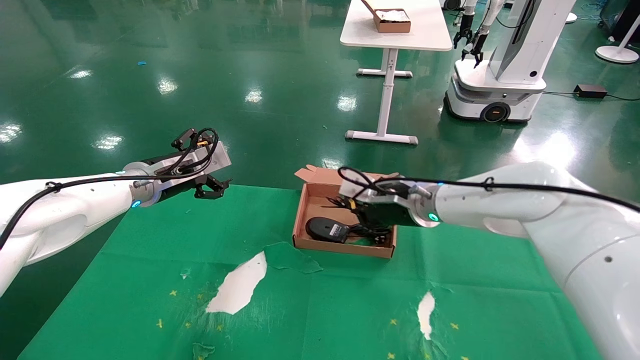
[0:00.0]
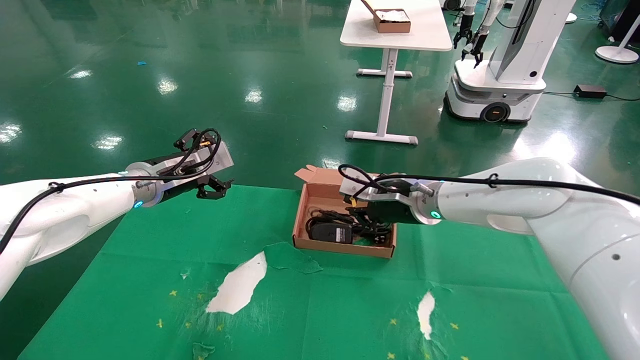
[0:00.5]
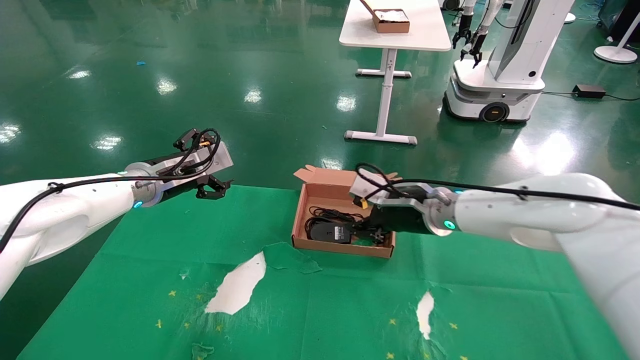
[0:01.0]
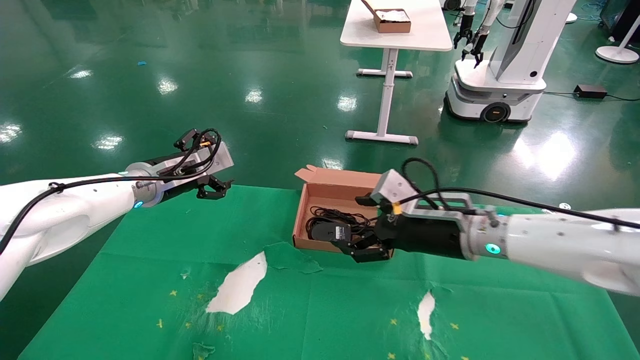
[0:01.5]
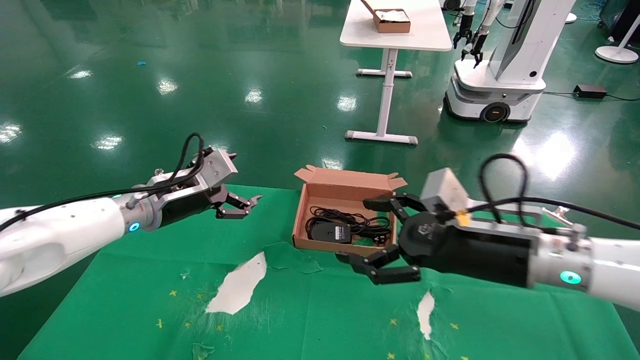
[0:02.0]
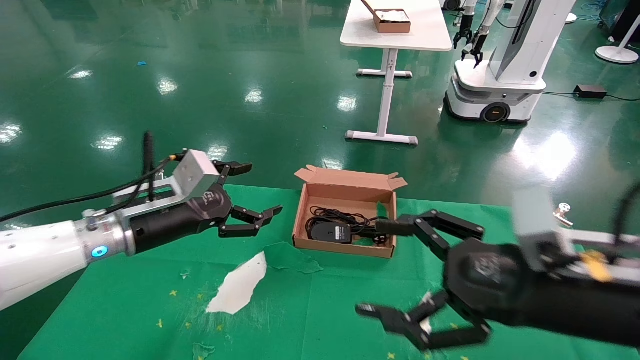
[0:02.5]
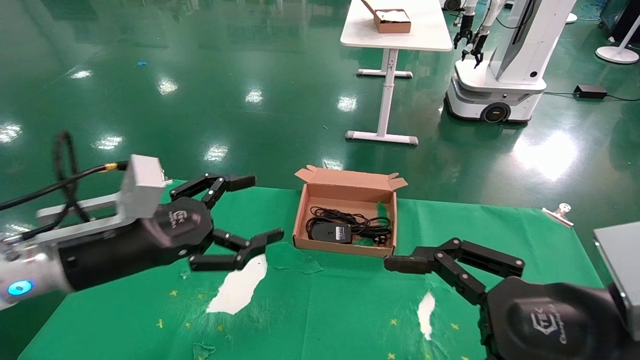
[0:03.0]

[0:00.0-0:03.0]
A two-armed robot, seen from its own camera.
0:00.0 to 0:01.5: The right gripper travels backward by about 5 cm, and opens up.
0:01.5 to 0:03.0: The two grippers go about 20 cm backward.

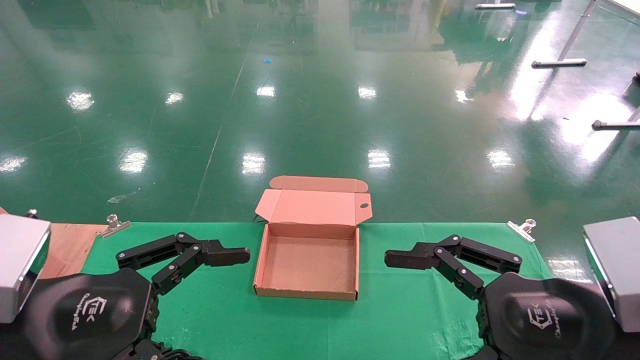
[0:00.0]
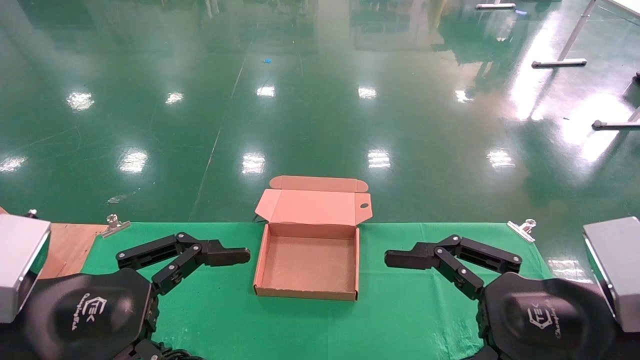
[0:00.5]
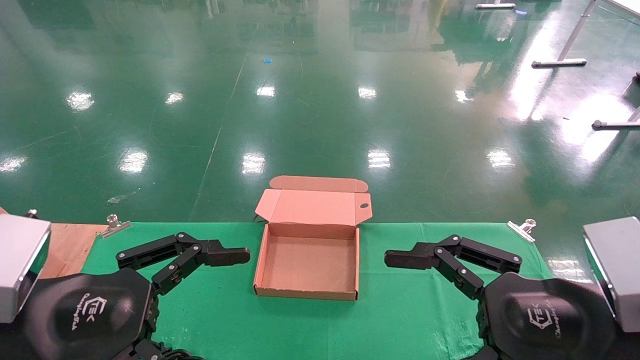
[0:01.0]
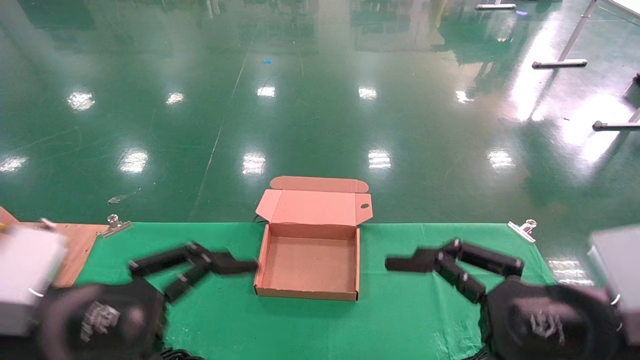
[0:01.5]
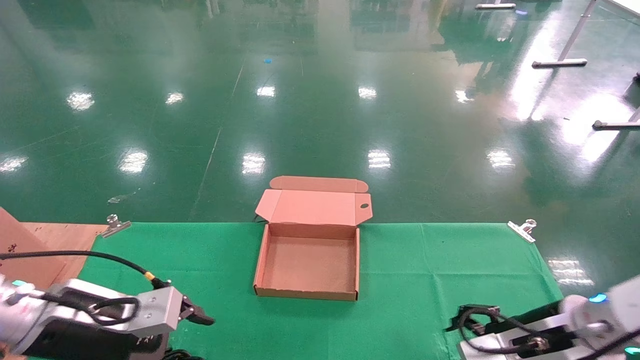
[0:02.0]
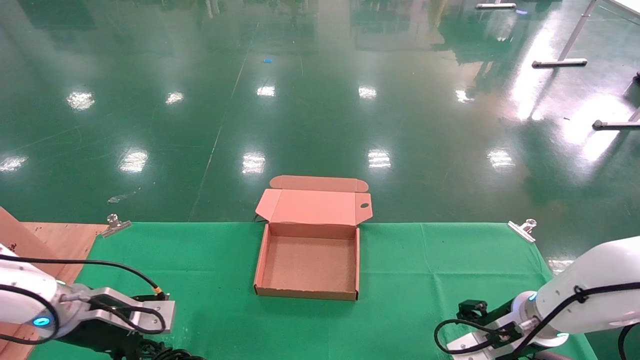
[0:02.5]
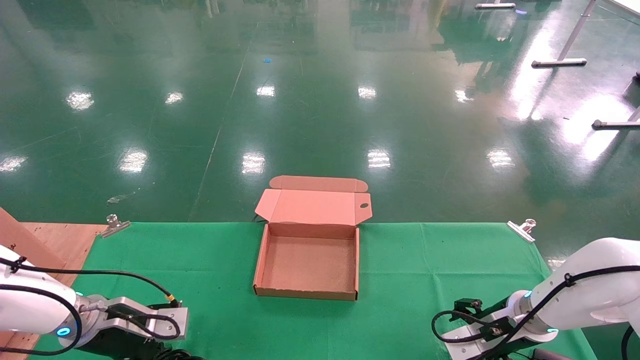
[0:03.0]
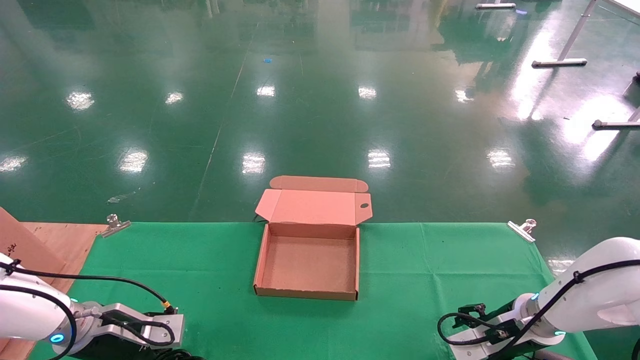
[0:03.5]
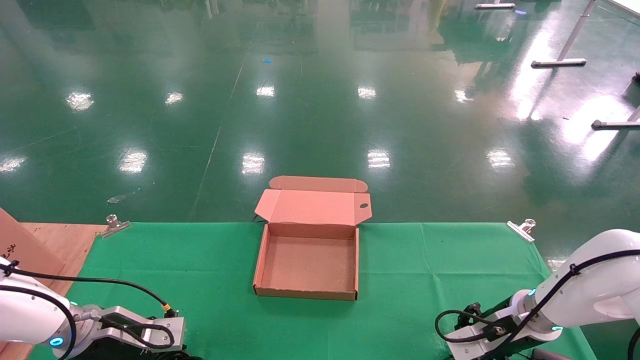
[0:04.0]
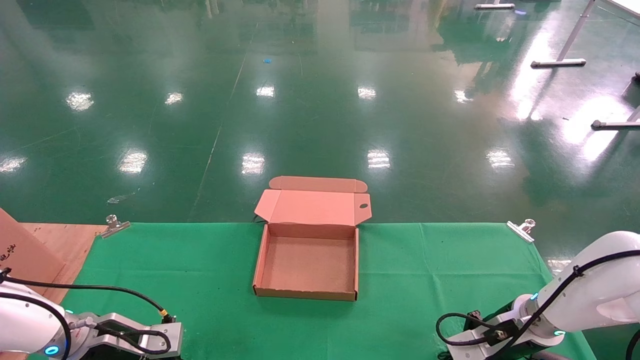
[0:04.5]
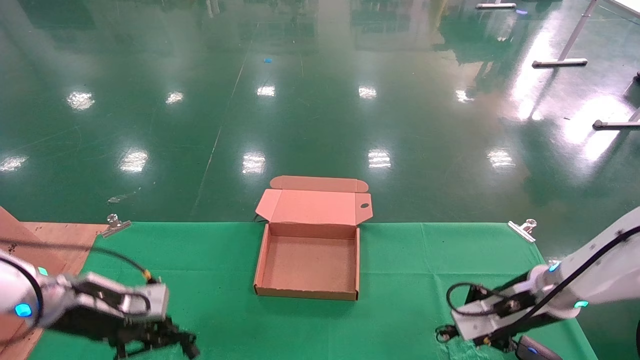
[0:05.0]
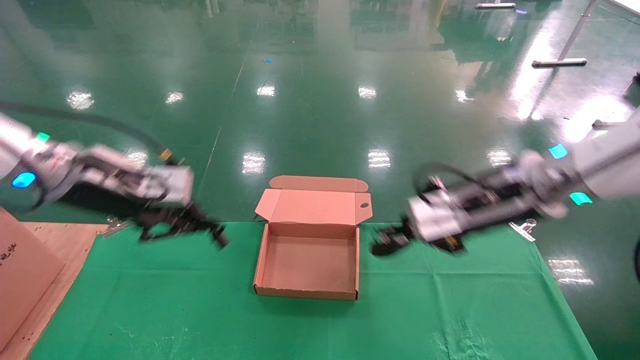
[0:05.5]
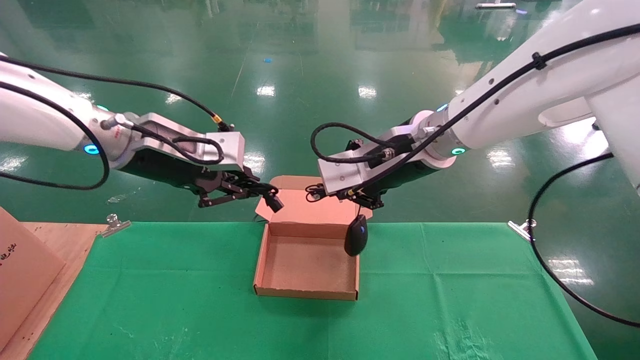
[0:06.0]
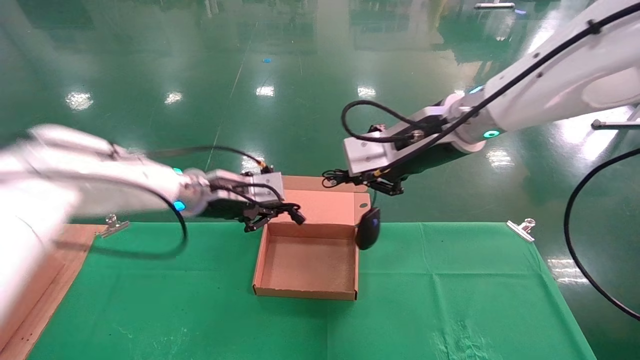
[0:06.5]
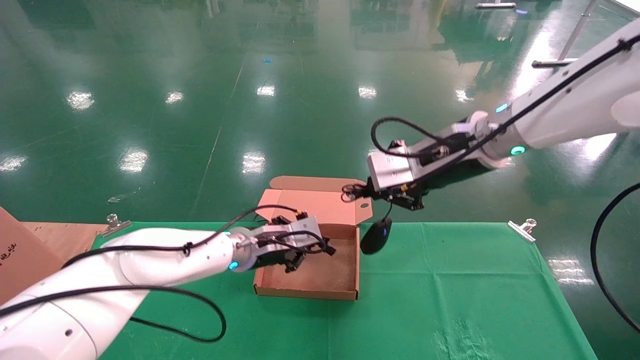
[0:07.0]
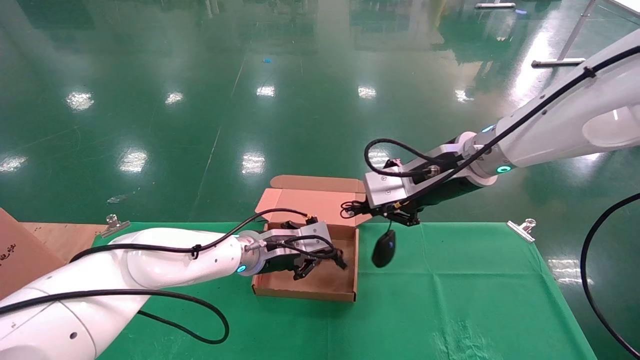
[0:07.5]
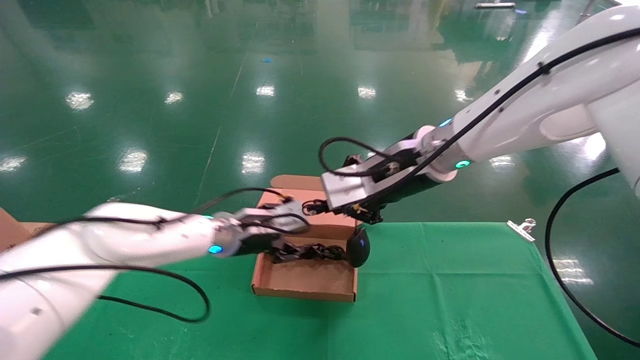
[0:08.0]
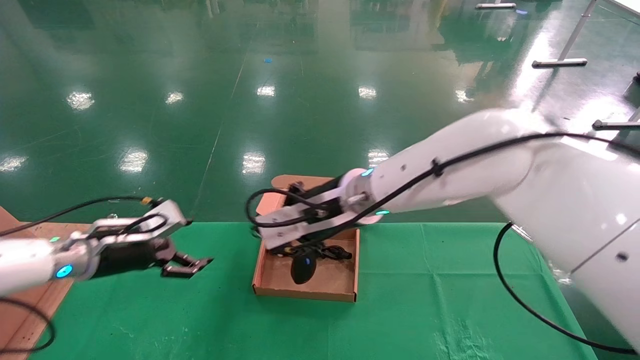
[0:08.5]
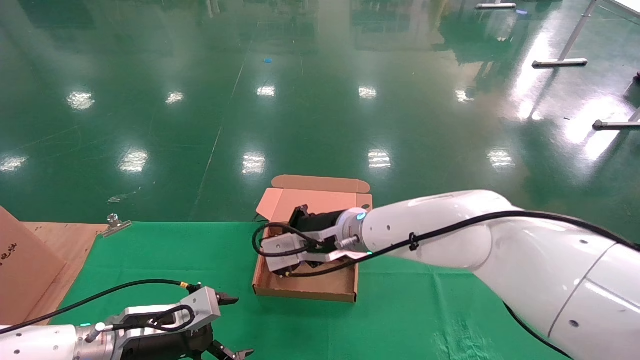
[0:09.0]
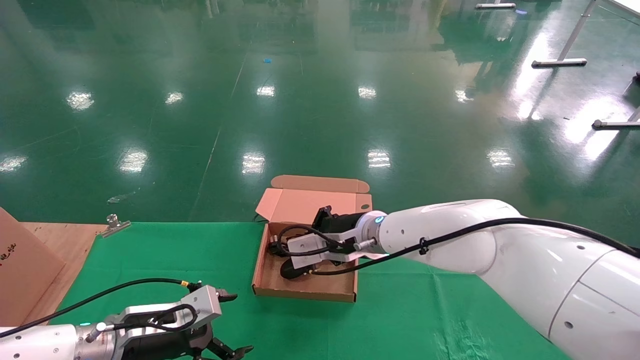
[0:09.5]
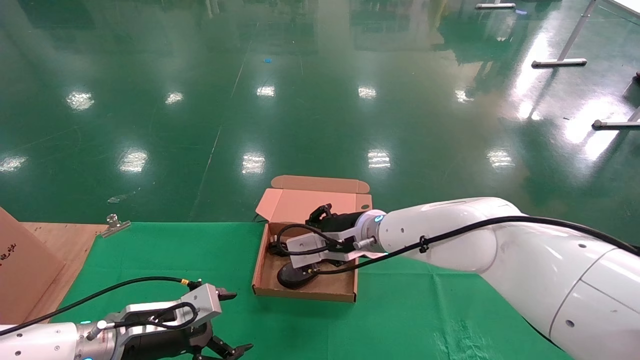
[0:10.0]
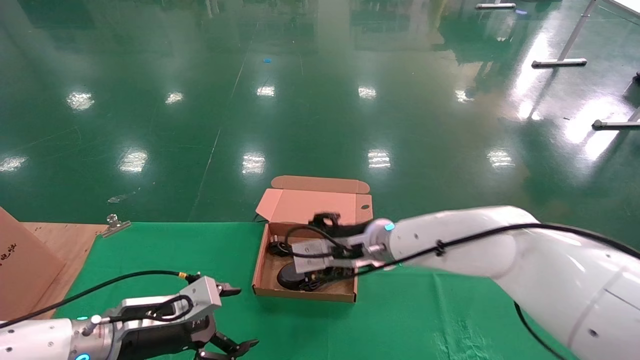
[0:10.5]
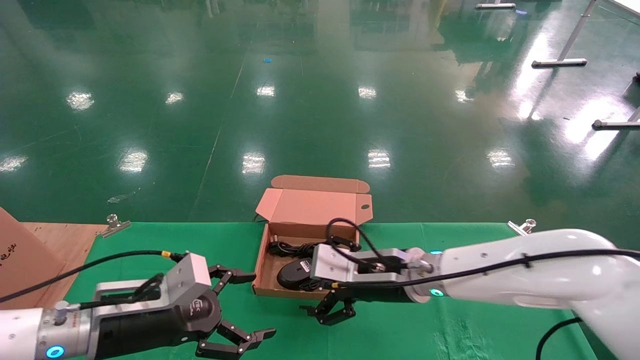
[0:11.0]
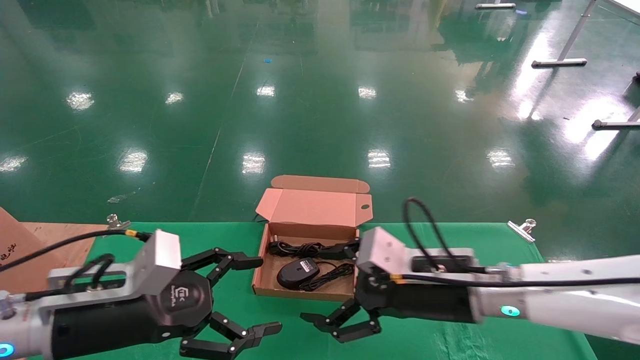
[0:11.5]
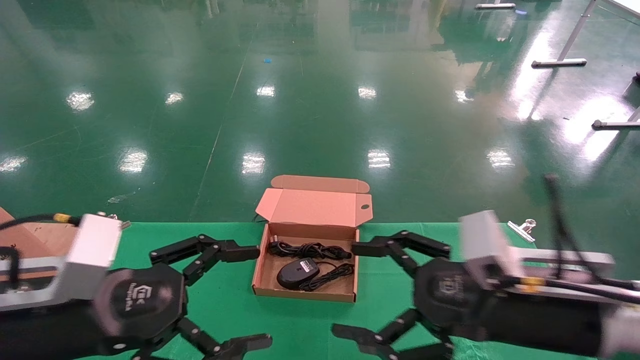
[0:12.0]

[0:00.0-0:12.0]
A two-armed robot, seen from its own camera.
Step, 0:02.0 to 0:05.5: Grab and lift both the mouse and power cord from the accessory packaging area at the same time.
Step, 0:06.0 to 0:10.5: Place the mouse and power cord into the box.
0:00.0 to 0:02.0: The grippers both shift forward and downward by roughly 15 cm.
0:02.0 to 0:04.0: The left gripper heads downward and forward, covering about 10 cm, and closes up; the right gripper travels forward and downward by roughly 10 cm, and closes.
0:04.0 to 0:06.0: The left gripper goes roughly 30 cm upward and to the right, and closes up. Meanwhile the right gripper moves upward and to the left, about 30 cm, and closes its fingers.
0:06.0 to 0:08.0: The left gripper travels downward and forward by approximately 20 cm, and opens up.
0:08.0 to 0:10.0: The left gripper goes some 20 cm backward, downward and to the left, and opens up. Meanwhile the right gripper moves downward, to the left and forward, about 15 cm.
0:10.0 to 0:12.0: The right gripper goes some 25 cm backward and to the right, and opens up; the left gripper moves upward and backward, roughly 20 cm.

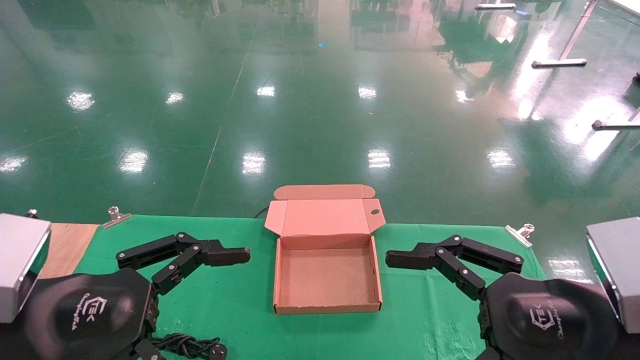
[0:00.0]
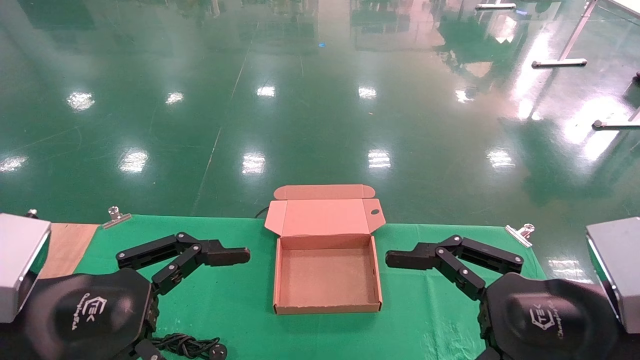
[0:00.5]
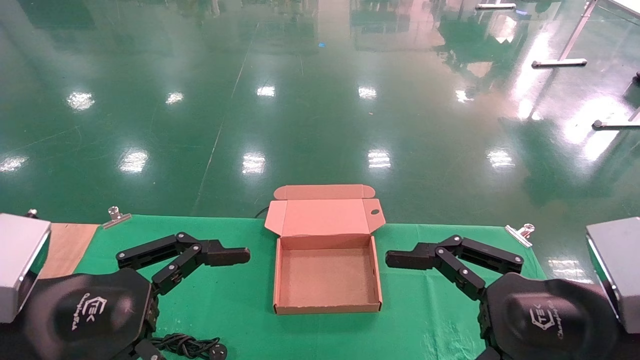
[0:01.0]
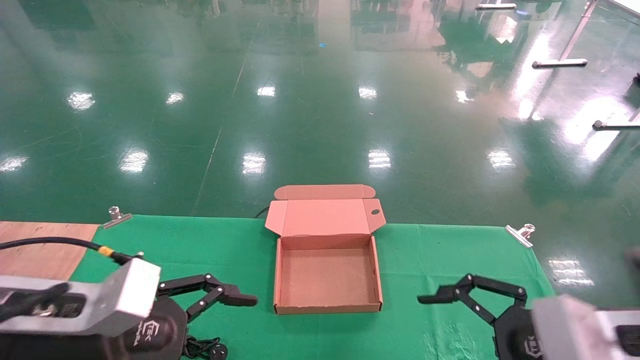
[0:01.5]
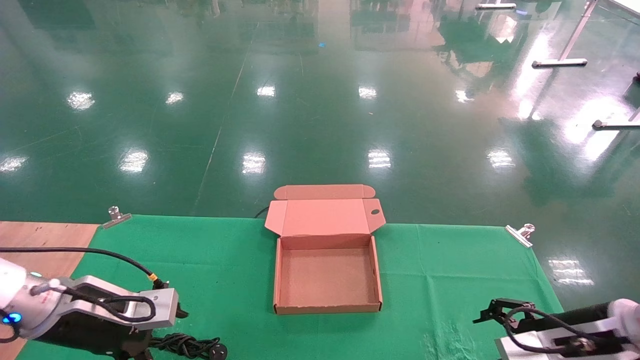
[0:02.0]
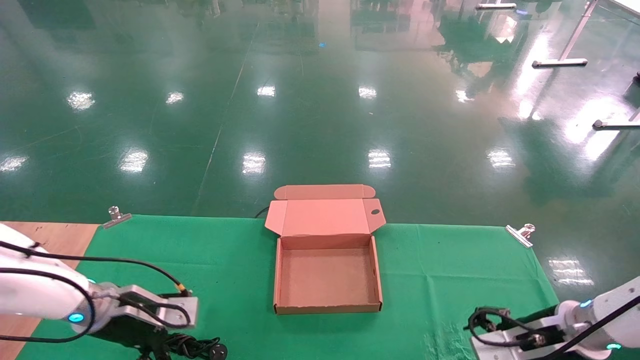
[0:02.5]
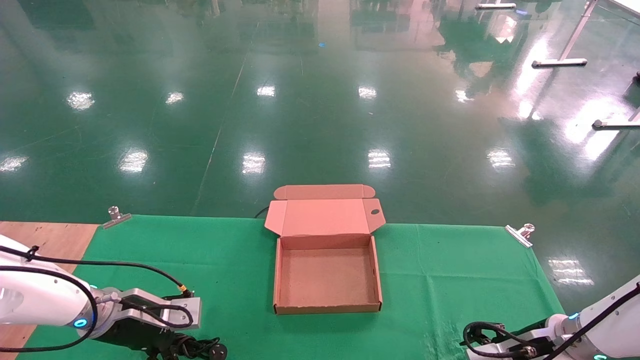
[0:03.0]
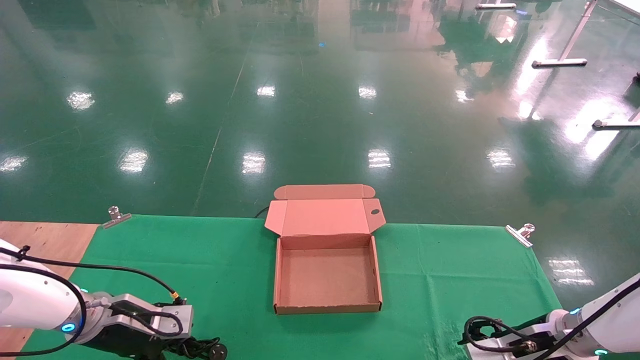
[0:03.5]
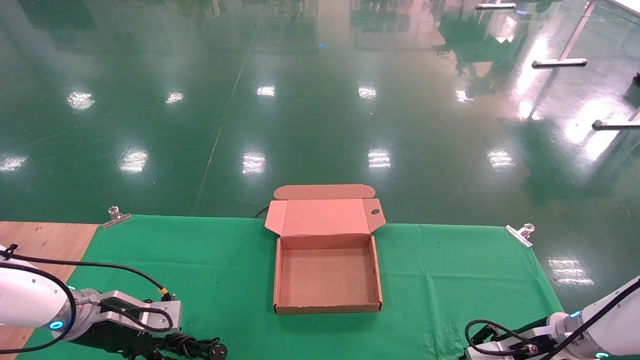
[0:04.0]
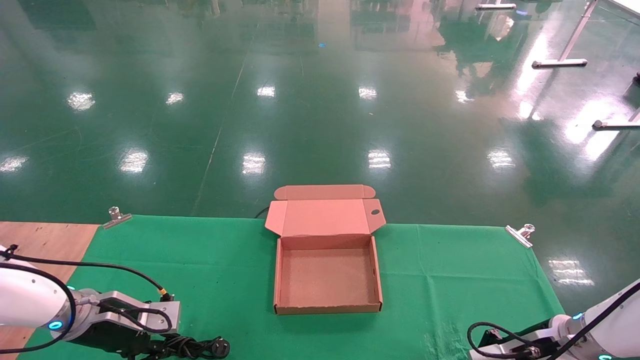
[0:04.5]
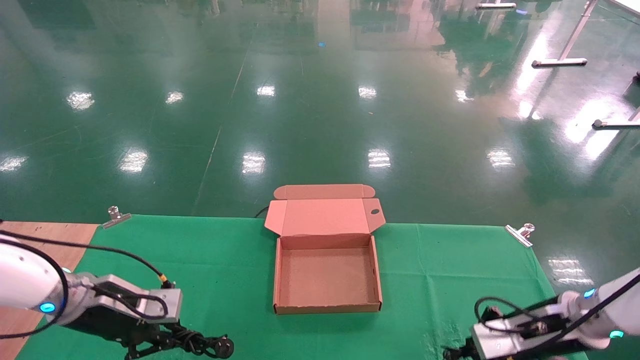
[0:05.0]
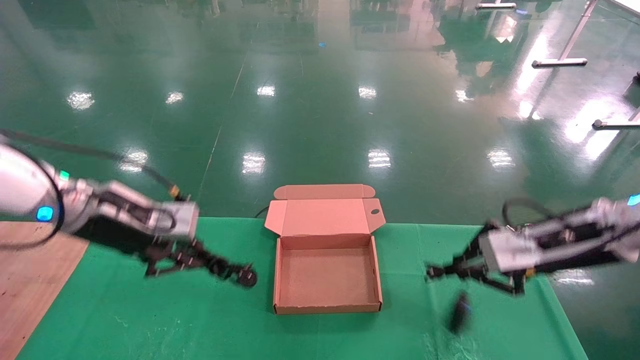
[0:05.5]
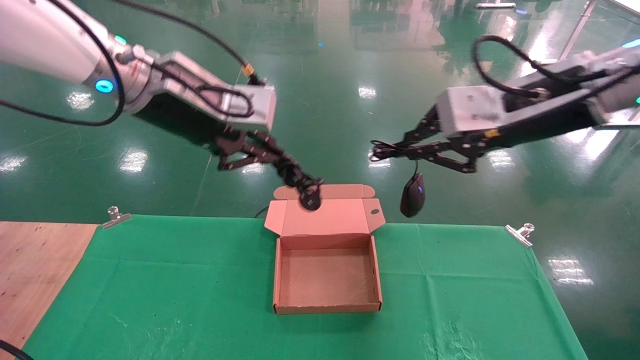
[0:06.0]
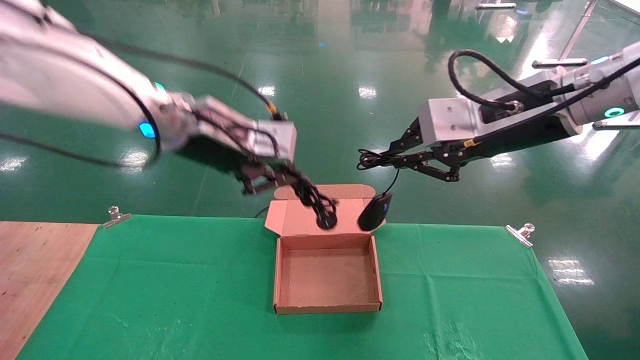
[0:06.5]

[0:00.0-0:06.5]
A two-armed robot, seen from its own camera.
Step, 0:01.5 to 0:05.0: Grab and lift both the mouse and power cord from the accessory packaging area at the same time.
0:00.0 to 0:02.0: The left gripper is displaced forward and downward by approximately 20 cm, while the right gripper moves forward, downward and to the right, some 20 cm.
0:02.0 to 0:04.5: The grippers both shift downward and forward by roughly 10 cm. The left gripper closes up; the right gripper closes.
0:04.5 to 0:06.5: The left gripper travels upward and to the right by some 35 cm, while the right gripper heads upward, covering about 35 cm.
